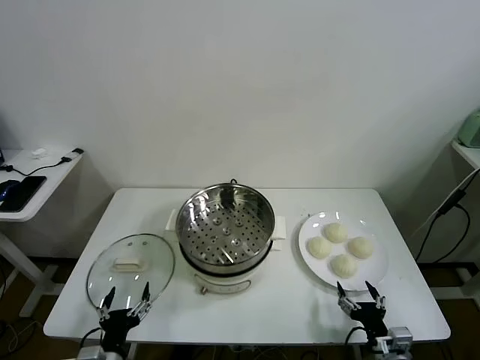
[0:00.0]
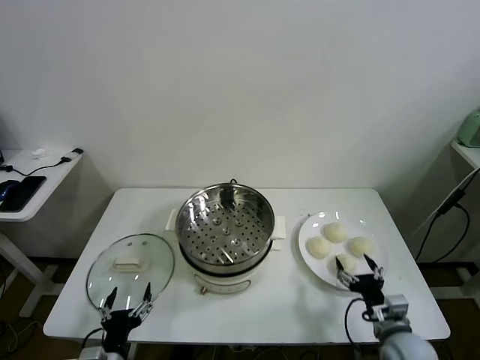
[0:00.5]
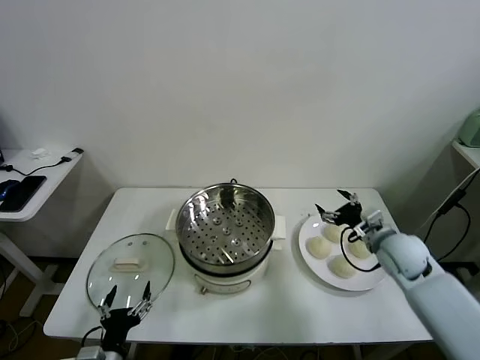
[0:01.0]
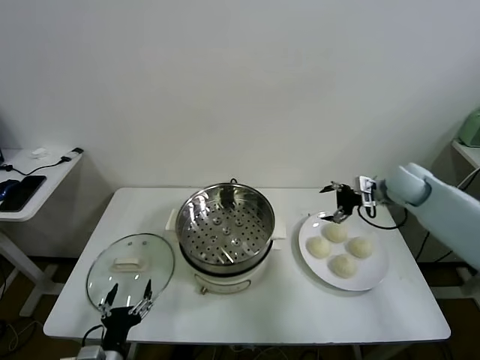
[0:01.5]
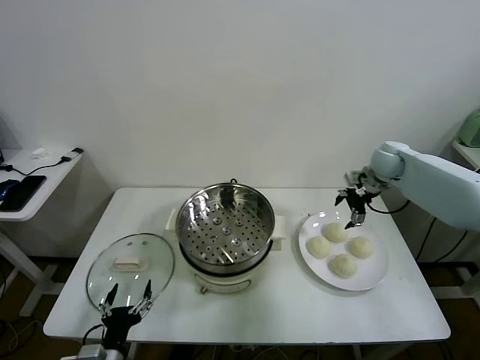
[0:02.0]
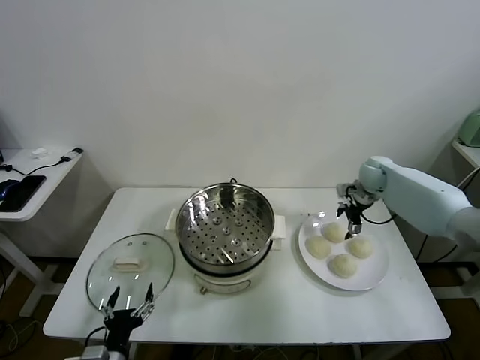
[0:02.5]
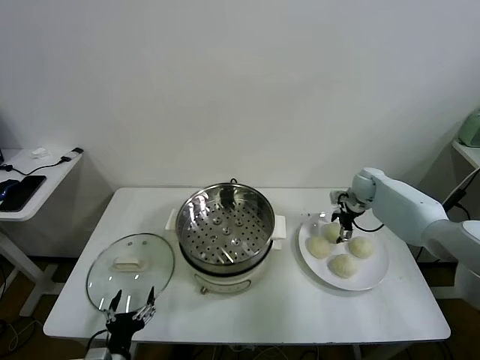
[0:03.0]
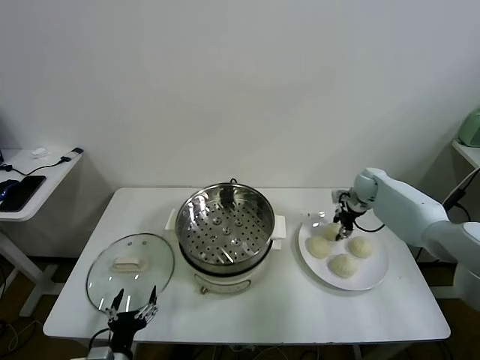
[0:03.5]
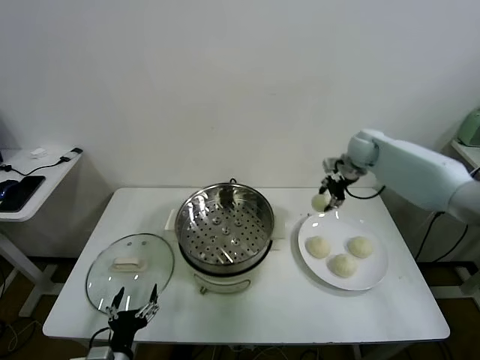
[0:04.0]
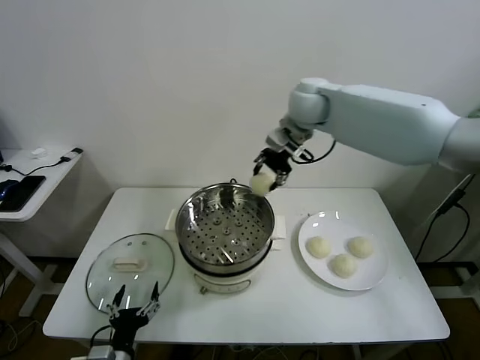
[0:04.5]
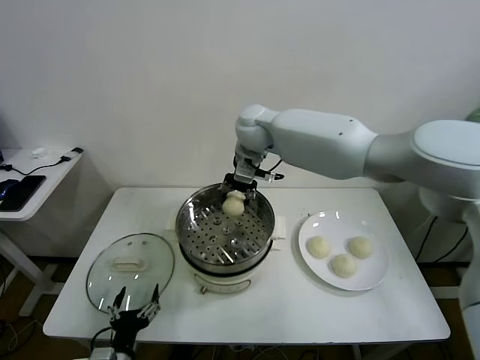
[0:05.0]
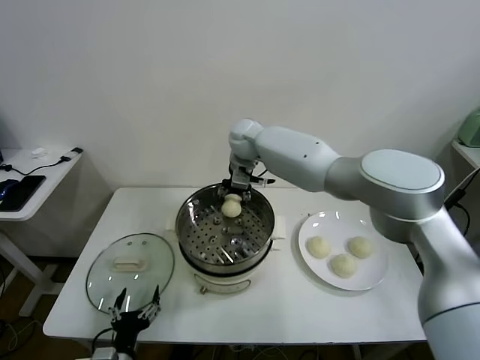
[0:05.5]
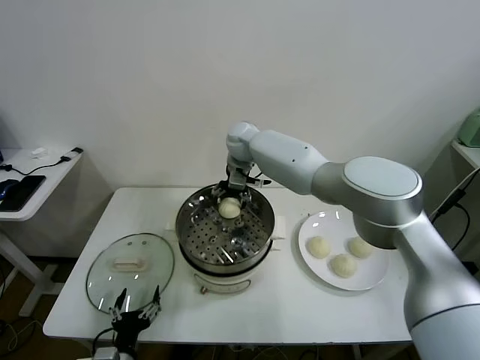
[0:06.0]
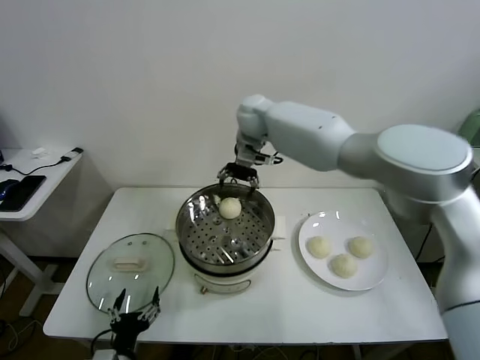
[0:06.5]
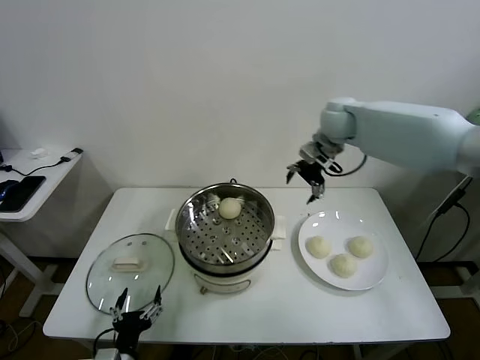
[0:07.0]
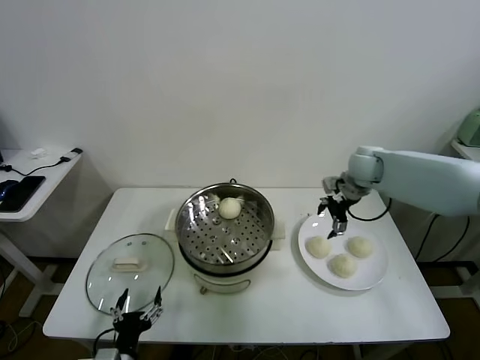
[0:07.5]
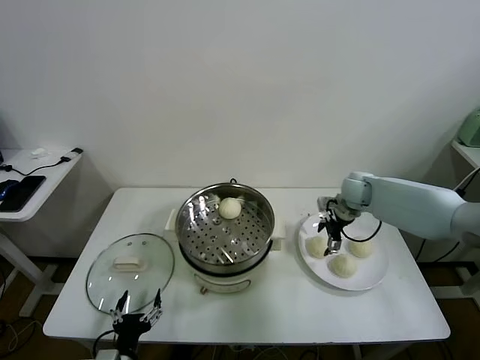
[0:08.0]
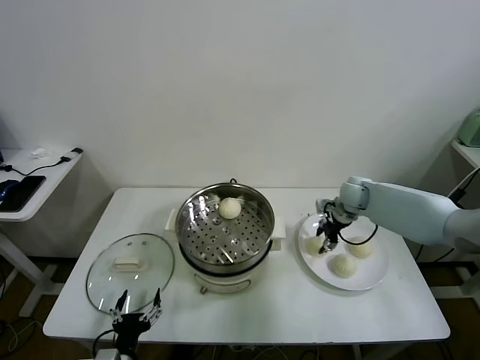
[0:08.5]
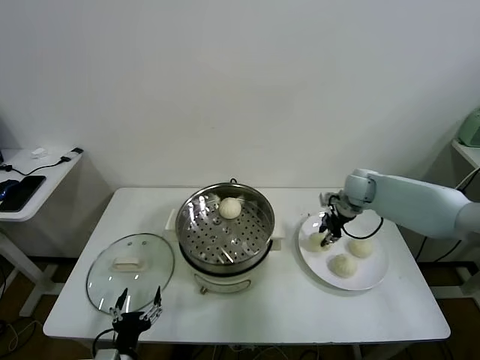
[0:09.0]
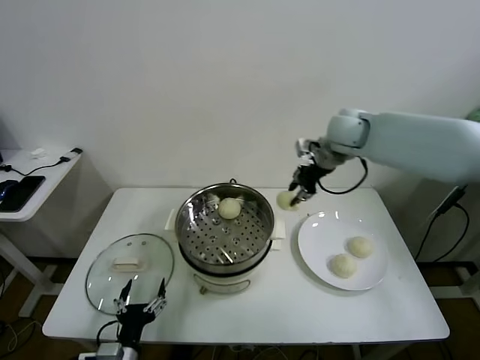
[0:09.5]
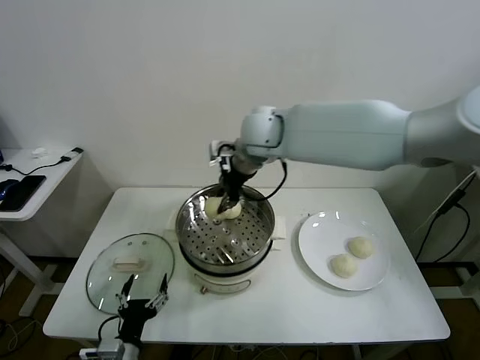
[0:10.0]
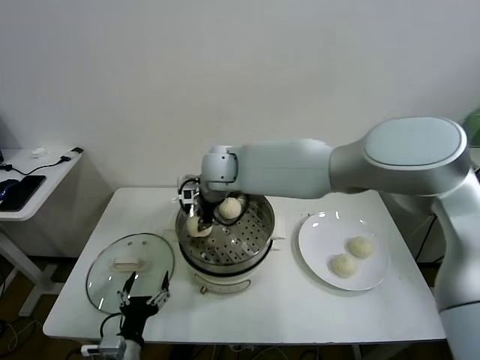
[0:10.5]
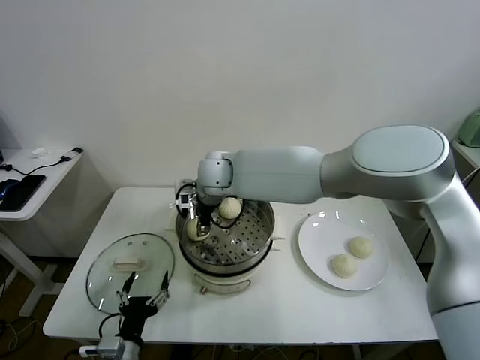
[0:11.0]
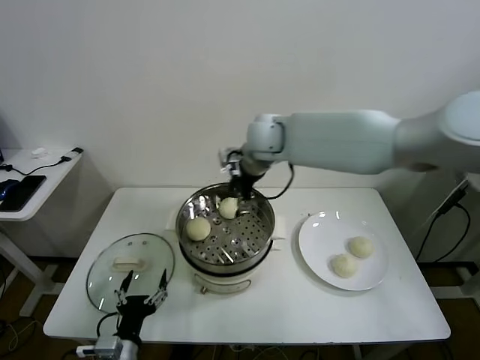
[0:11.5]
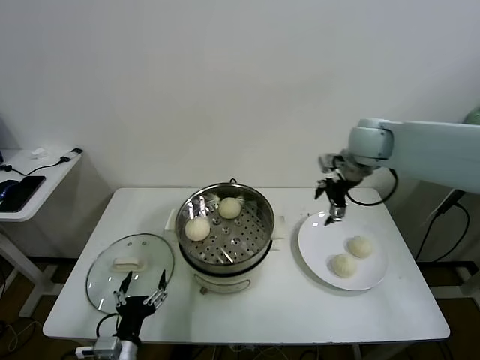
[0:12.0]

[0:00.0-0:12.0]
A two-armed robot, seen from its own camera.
Task of the whole recording: take steamed baozi put them in steamer.
Step, 0:00.0 to 0:03.0: Grasp the baozi in the plate with right gripper.
Step, 0:03.5 to 0:06.0: Place the baozi on the steamer with right gripper.
Step, 0:06.5 to 0:08.0: Grasp the baozi in the plate with right gripper.
Step, 0:08.5 to 0:11.0: Place the baozi on the steamer with right gripper.
0:02.0 to 0:04.0: The right gripper heads to the left and upward, covering roughly 10 cm, and closes.
0:04.0 to 0:06.0: The right gripper shifts roughly 30 cm to the left, and opens up.
0:06.0 to 0:08.0: The right gripper heads to the right and downward, covering some 35 cm.
0:08.0 to 0:10.0: The right gripper moves to the left and upward, approximately 35 cm, and closes.
0:10.0 to 0:12.0: The right gripper goes roughly 30 cm to the right, and opens.

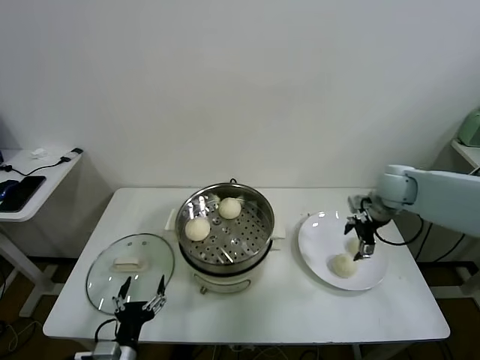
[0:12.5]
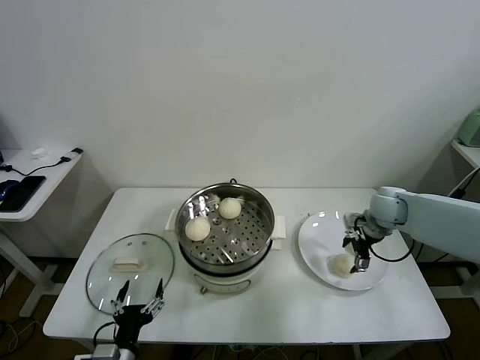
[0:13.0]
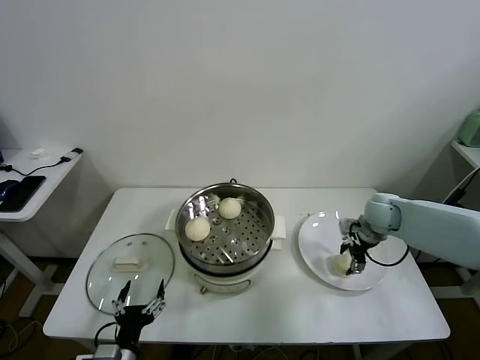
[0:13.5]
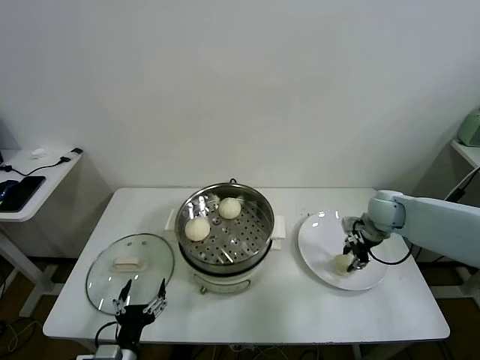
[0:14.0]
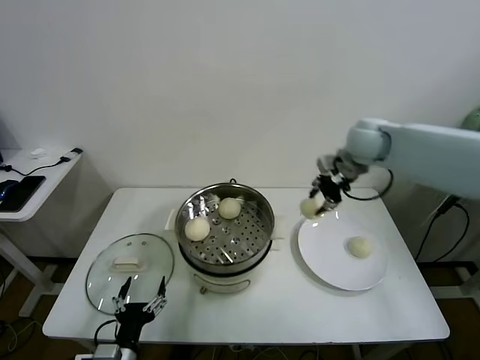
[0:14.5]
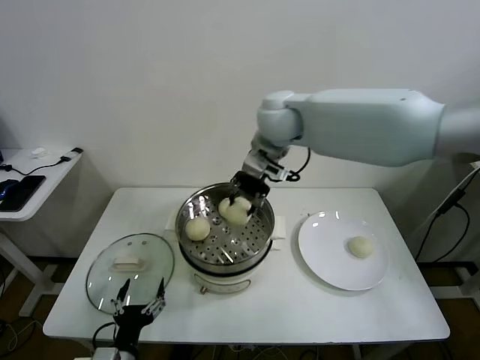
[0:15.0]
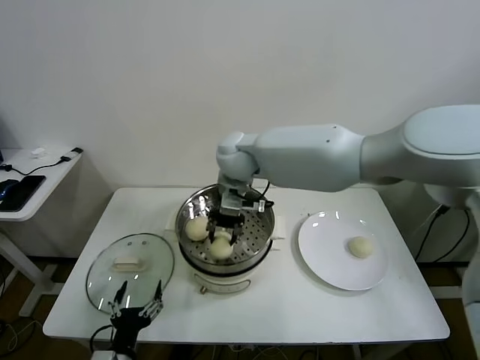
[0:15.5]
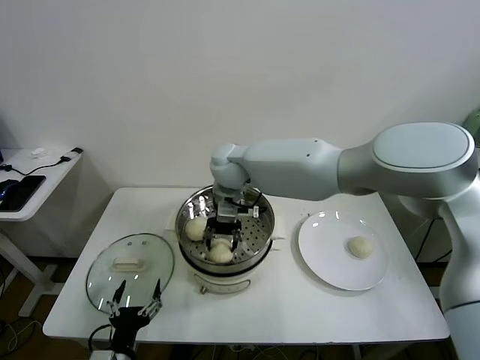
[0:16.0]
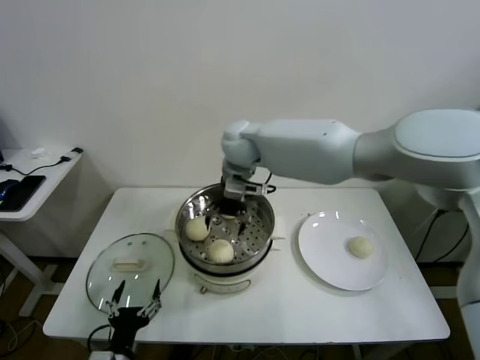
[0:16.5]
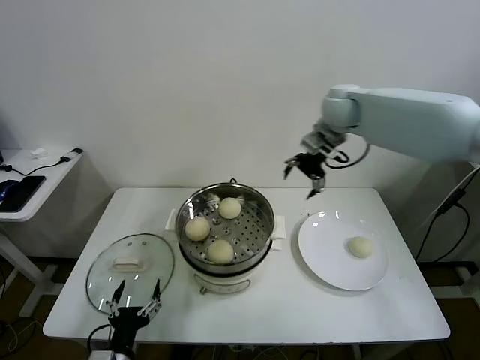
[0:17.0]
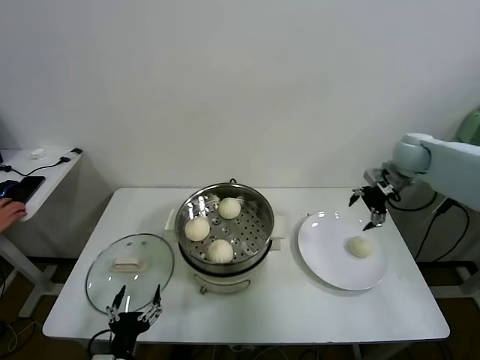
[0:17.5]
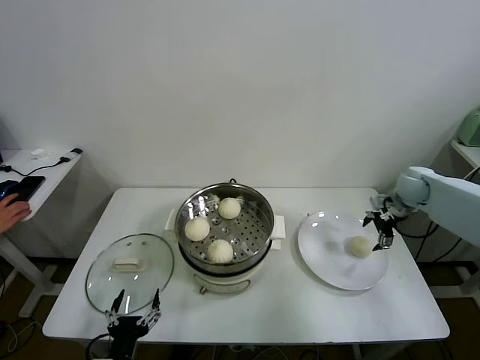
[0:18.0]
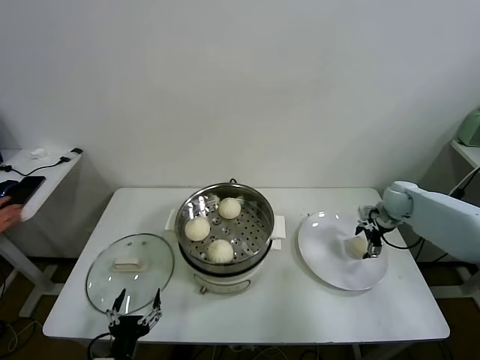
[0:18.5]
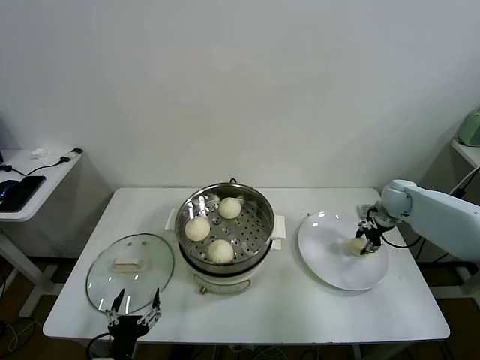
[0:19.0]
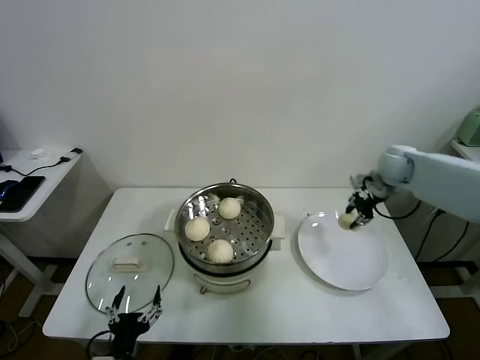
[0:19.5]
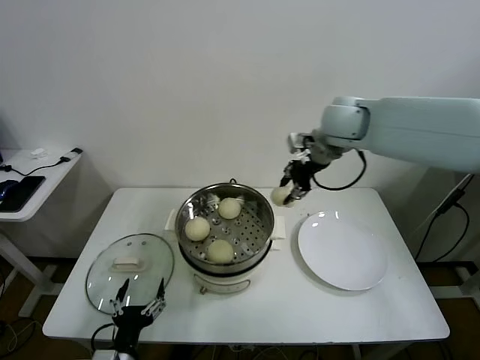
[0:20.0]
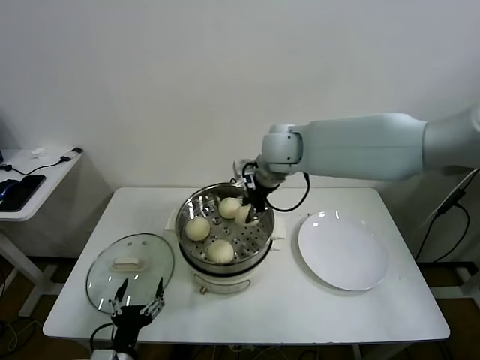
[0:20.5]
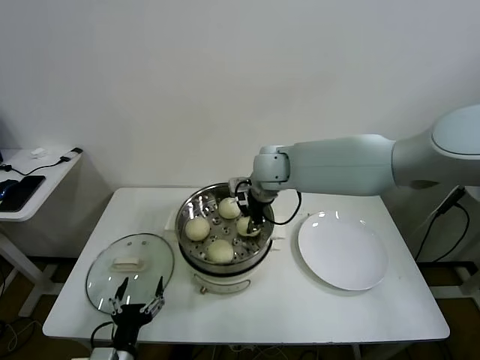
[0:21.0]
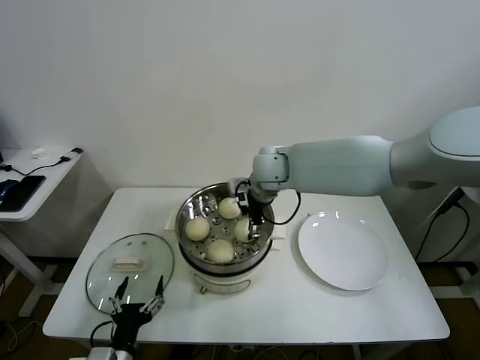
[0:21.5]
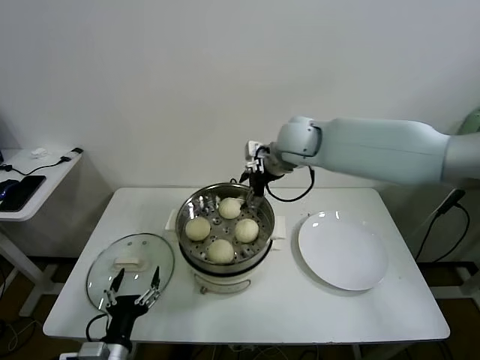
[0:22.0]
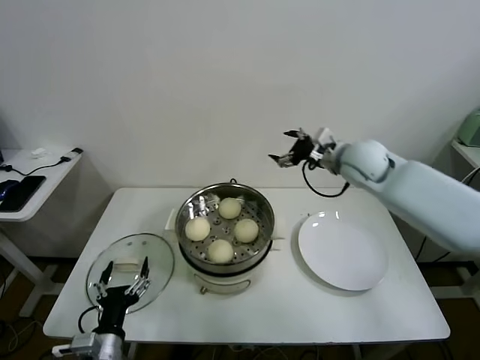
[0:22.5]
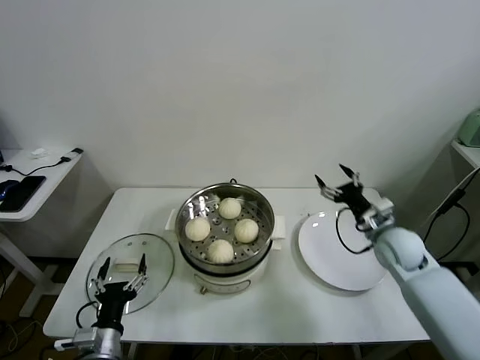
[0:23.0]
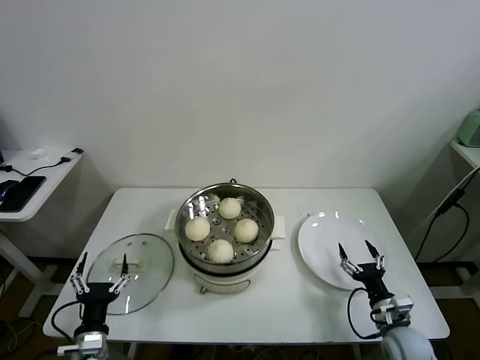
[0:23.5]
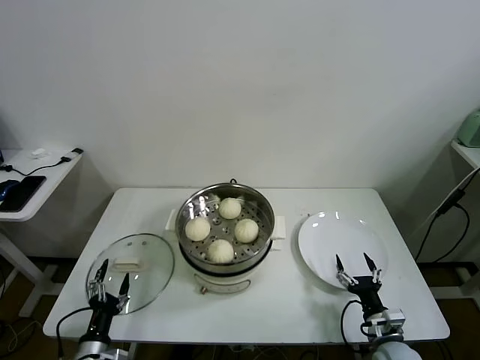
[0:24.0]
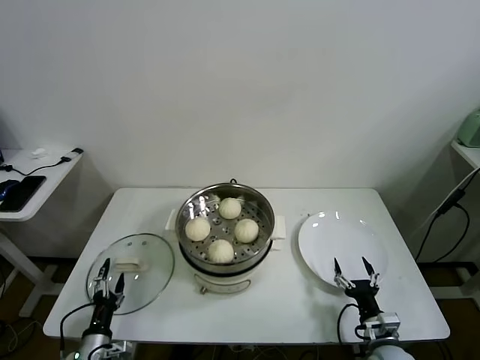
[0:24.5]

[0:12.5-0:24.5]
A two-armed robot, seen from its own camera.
Task of the whole recording: take steamed baozi put them in steamer.
Step, 0:14.0 to 0:16.0: Place the baozi on the steamer with right gripper.
Step, 0:16.5 to 0:18.5: Grasp the baozi in the plate with right gripper.
Step, 0:19.0 to 0:21.5: Place the baozi on the steamer with right gripper.
0:12.5 to 0:14.5: The right gripper heads upward and to the left, covering about 20 cm, and closes its fingers.
0:14.5 to 0:16.5: The right gripper moves to the left, roughly 25 cm, and opens up.
0:16.5 to 0:18.5: The right gripper heads to the right and downward, covering approximately 50 cm.
0:18.5 to 0:20.5: The right gripper shifts about 40 cm to the left and upward, and closes up.
0:20.5 to 0:22.5: The right gripper heads to the right, covering about 20 cm, and opens up.
0:22.5 to 0:24.5: The left gripper moves downward and to the left, about 15 cm. The right gripper is displaced downward and backward by about 50 cm.

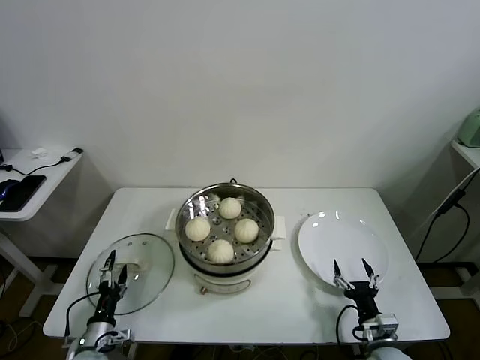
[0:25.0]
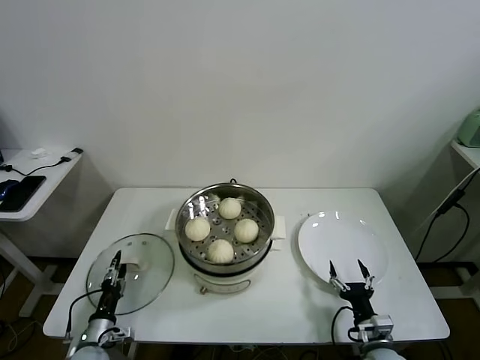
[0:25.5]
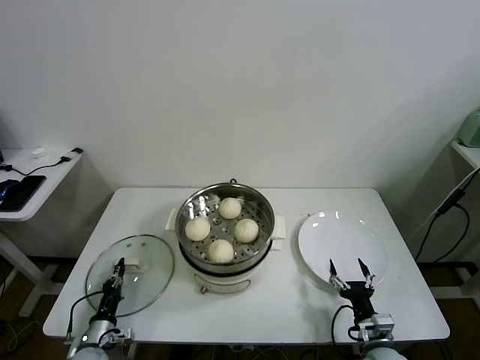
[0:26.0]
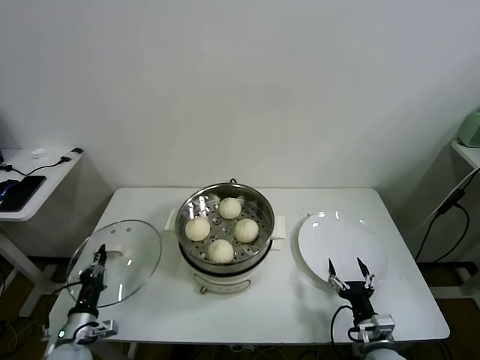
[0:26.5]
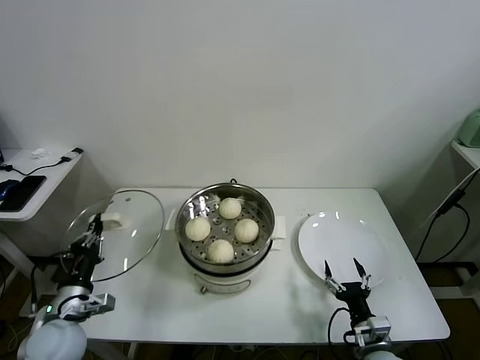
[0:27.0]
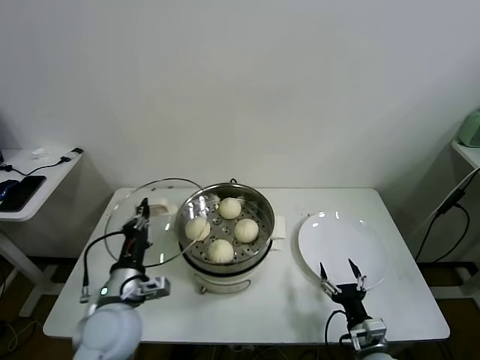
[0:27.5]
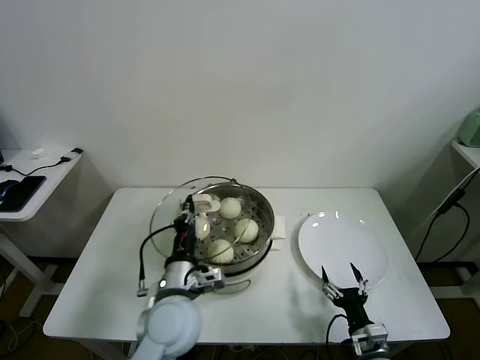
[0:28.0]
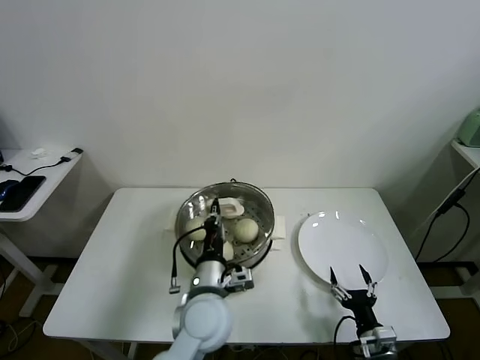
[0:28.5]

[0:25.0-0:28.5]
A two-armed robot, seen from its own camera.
Task of the whole recording: take steamed baozi put them in steamer.
0:25.0 to 0:27.0: The left gripper heads upward, covering some 15 cm, and closes its fingers.
0:27.0 to 0:28.5: The left gripper shifts approximately 30 cm to the right.
